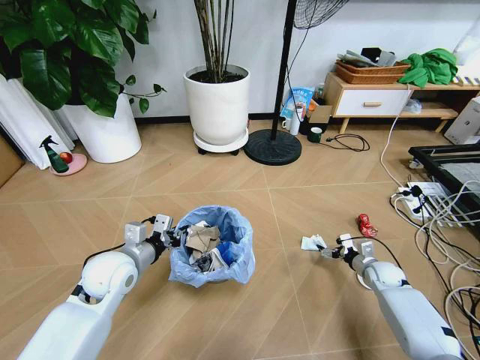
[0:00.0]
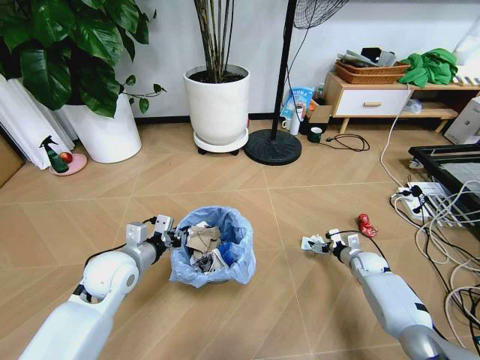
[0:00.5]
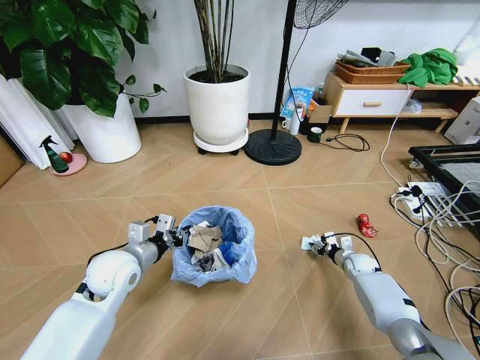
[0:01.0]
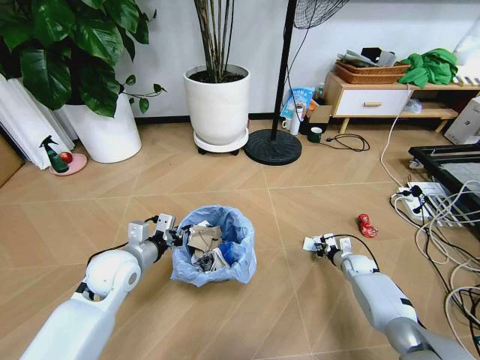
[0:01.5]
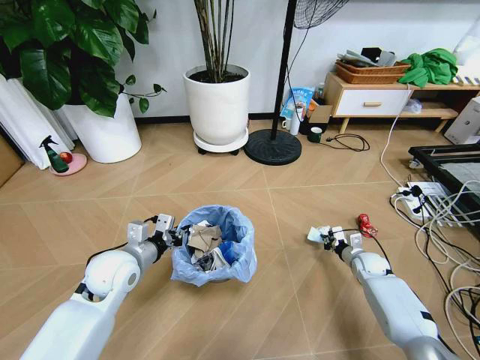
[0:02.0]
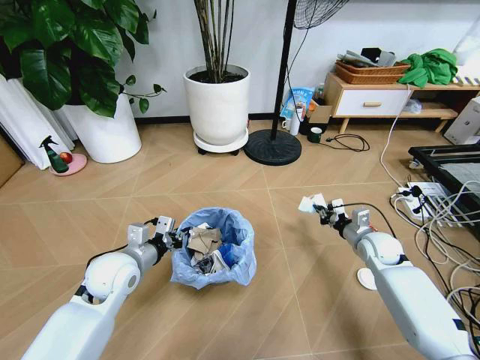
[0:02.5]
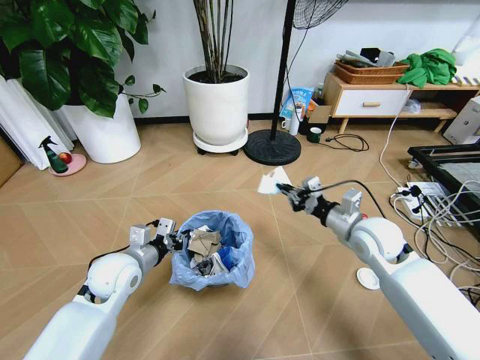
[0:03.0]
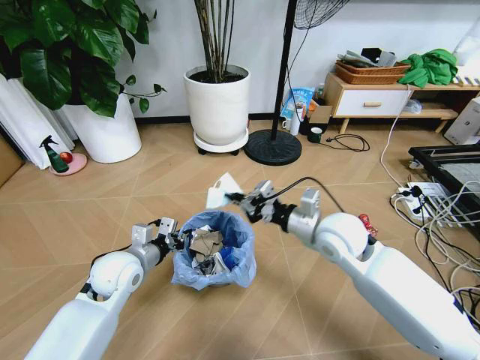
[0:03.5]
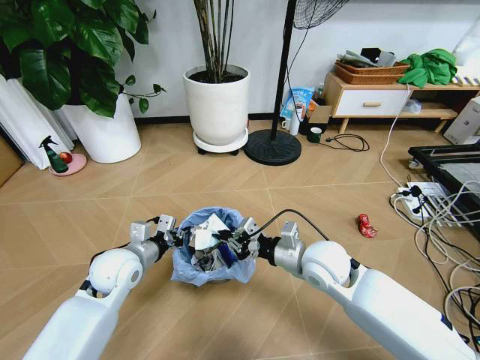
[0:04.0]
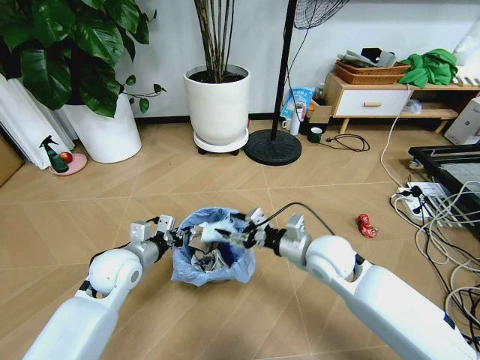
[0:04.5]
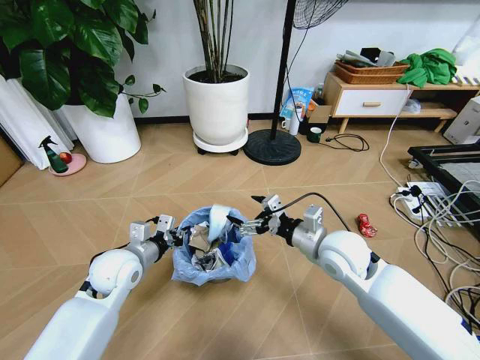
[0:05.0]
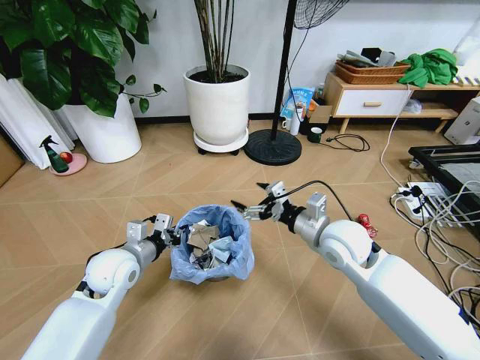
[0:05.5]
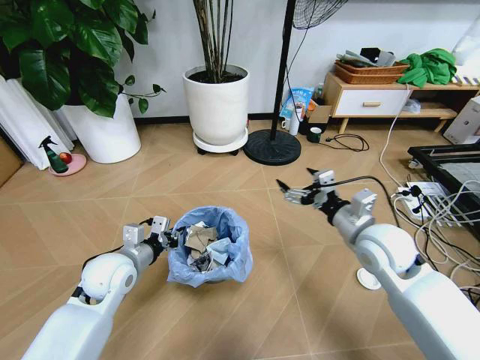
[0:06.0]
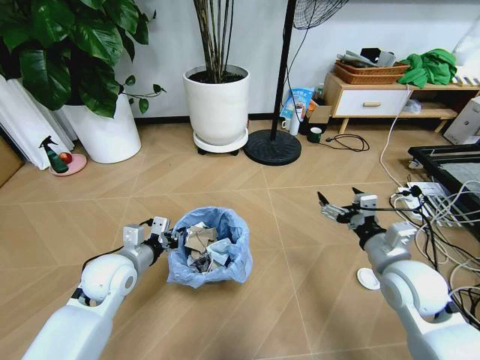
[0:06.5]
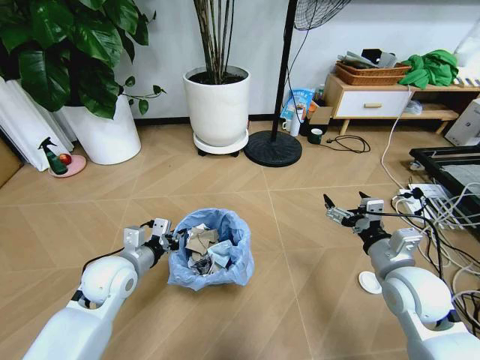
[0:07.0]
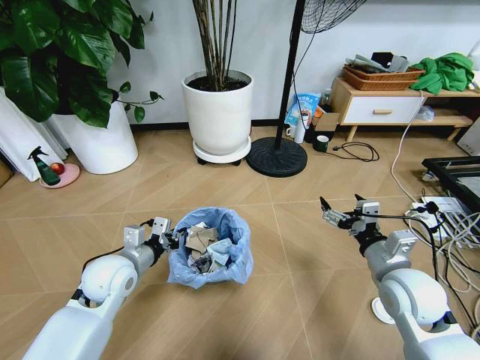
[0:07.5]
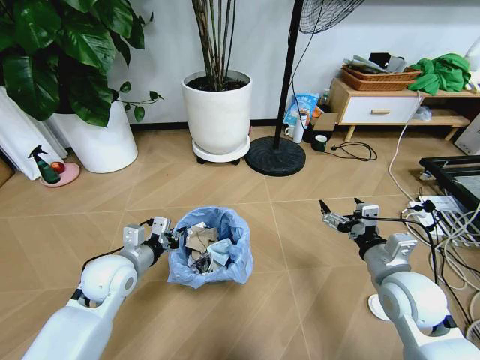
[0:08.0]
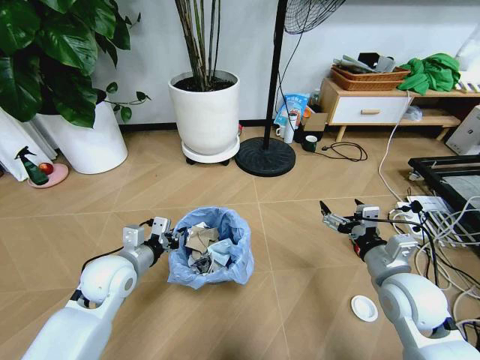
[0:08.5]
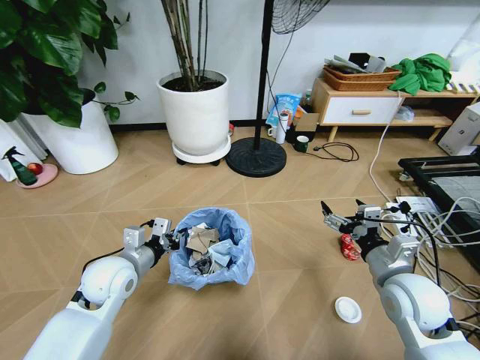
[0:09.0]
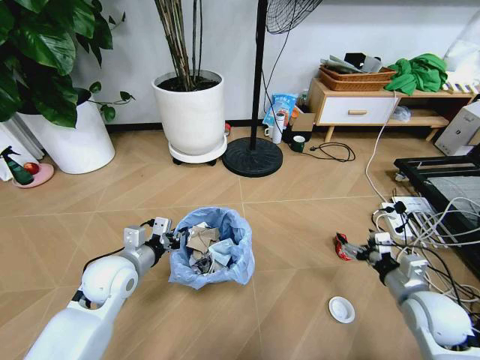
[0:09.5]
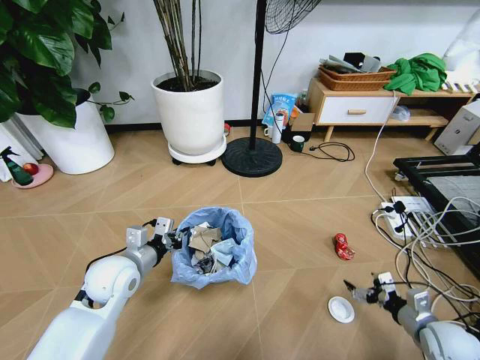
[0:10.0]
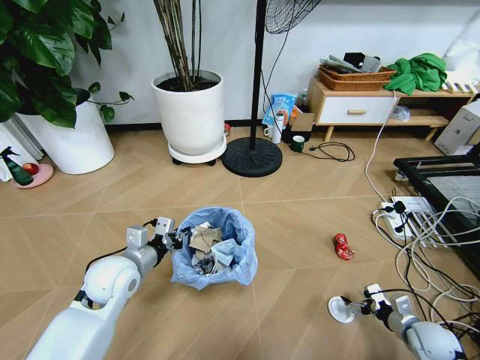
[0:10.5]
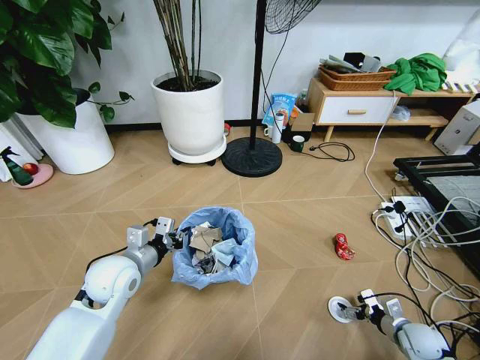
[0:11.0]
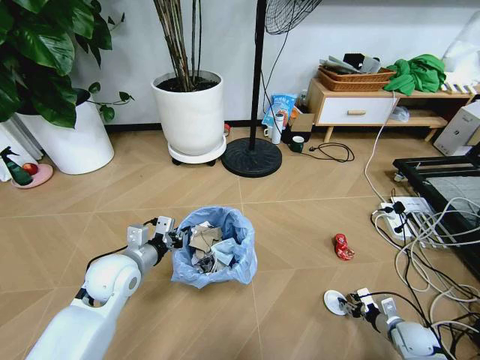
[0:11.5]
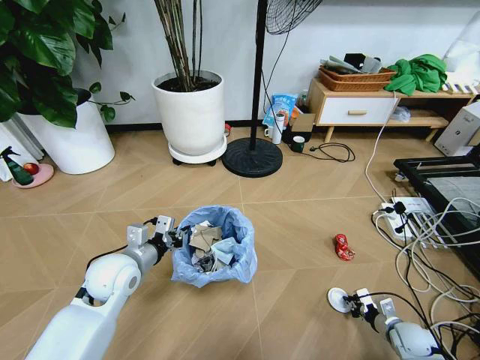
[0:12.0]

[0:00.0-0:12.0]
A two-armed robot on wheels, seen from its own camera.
Task of the whole recording: Pick up the trash bin and place the garbage on the floor into it.
0:00.0 to 0:02.0: The right gripper closes.
0:02.0 to 0:04.0: The right gripper is displaced to the left, upward and backward by some 35 cm.
0:04.0 to 0:06.0: The right gripper moves to the right and upward, approximately 10 cm, and opens up.
0:06.0 to 0:08.0: The right gripper shifts approximately 10 cm backward and downward.
0:08.0 to 0:10.0: The right gripper shifts roughly 20 cm downward and to the right.
0:10.0 to 0:12.0: The right gripper shifts some 10 cm downward, and closes its fingers.

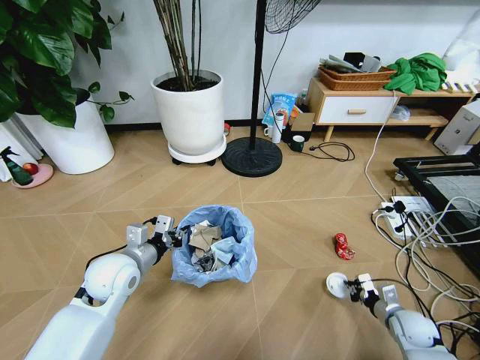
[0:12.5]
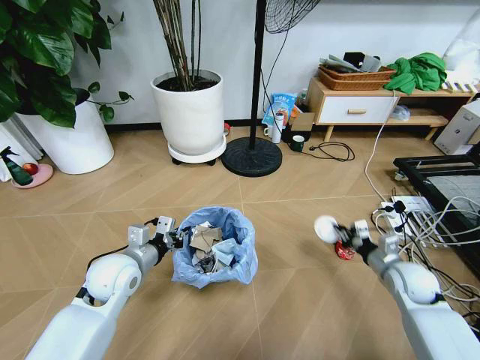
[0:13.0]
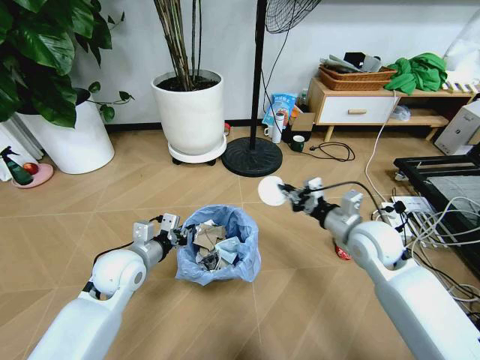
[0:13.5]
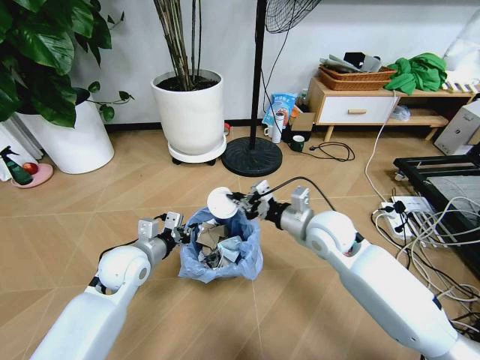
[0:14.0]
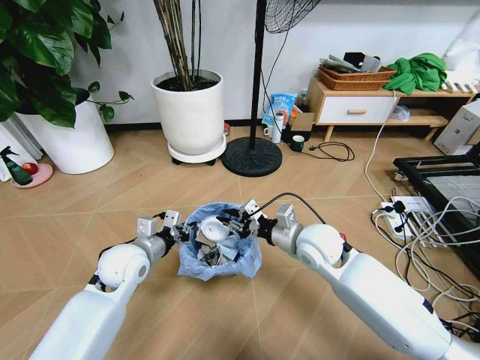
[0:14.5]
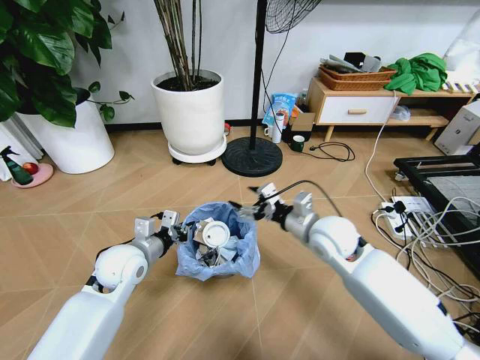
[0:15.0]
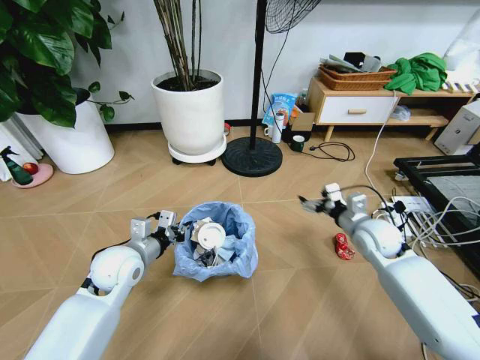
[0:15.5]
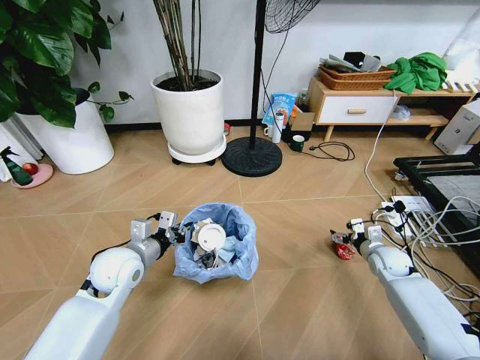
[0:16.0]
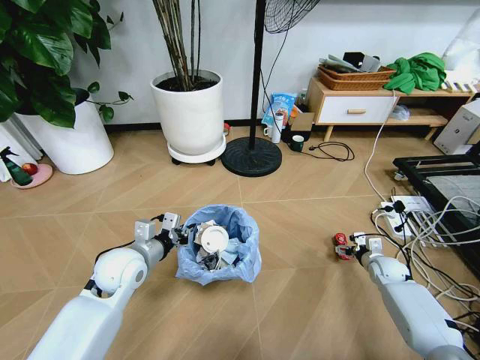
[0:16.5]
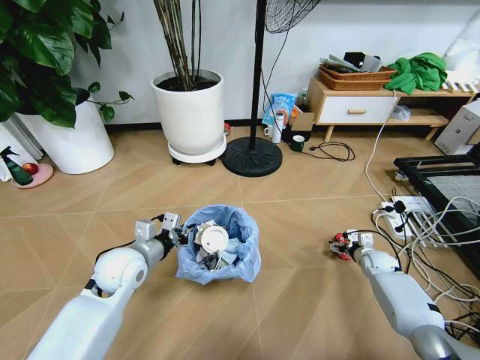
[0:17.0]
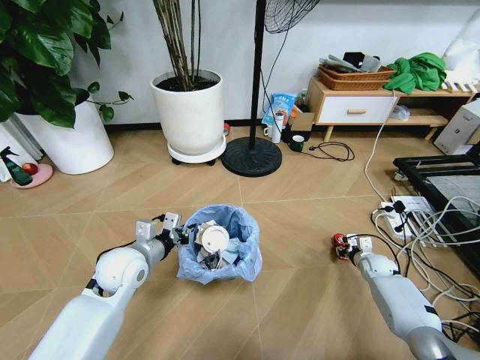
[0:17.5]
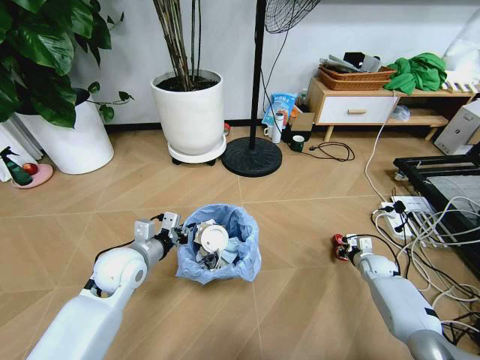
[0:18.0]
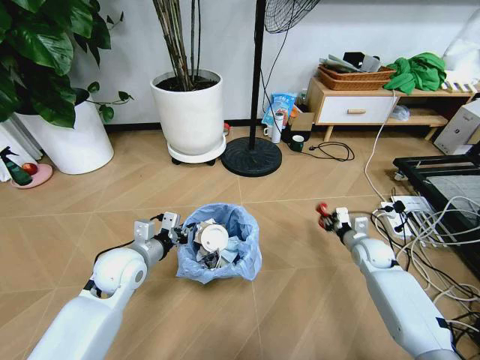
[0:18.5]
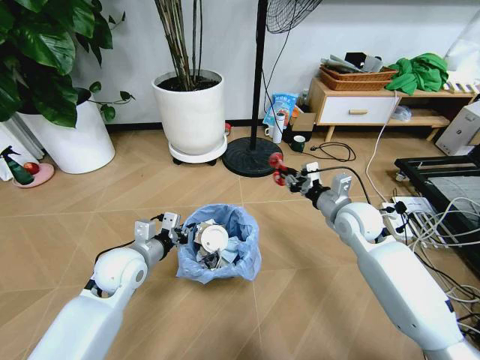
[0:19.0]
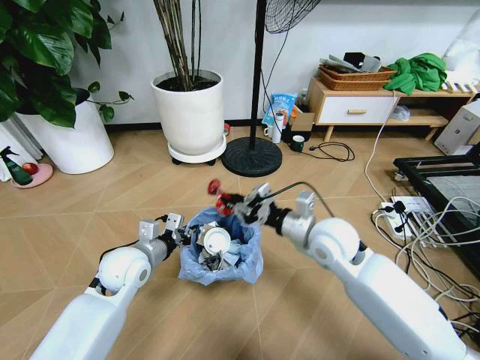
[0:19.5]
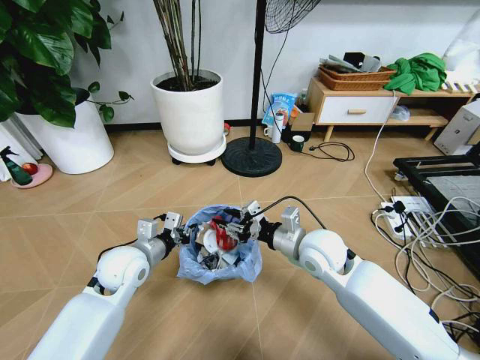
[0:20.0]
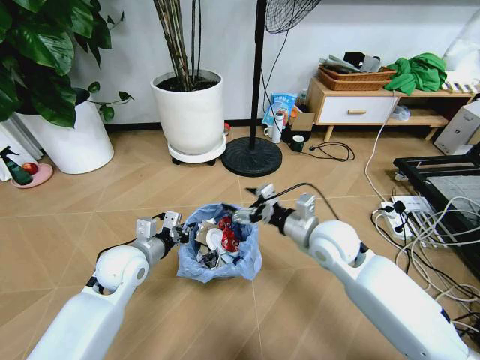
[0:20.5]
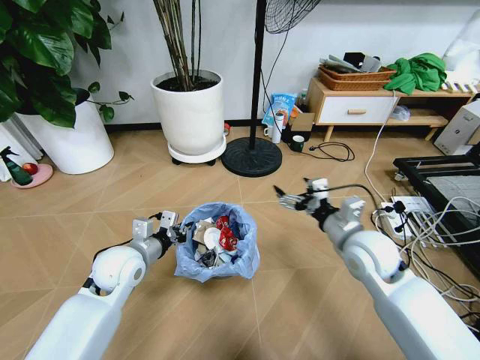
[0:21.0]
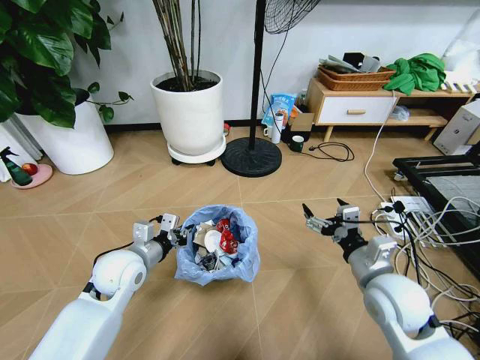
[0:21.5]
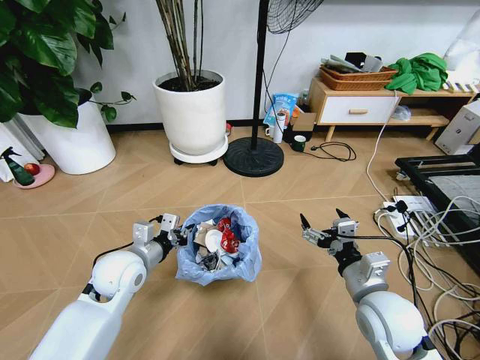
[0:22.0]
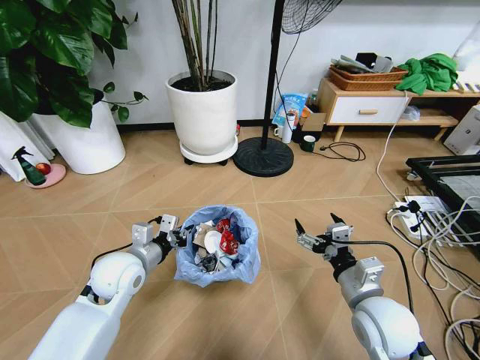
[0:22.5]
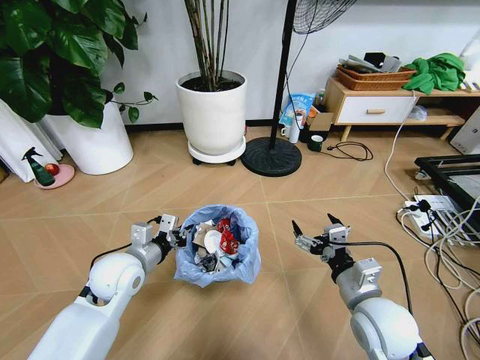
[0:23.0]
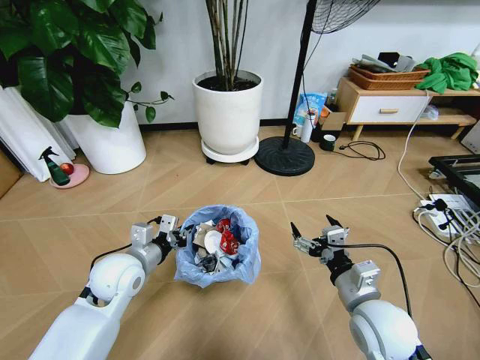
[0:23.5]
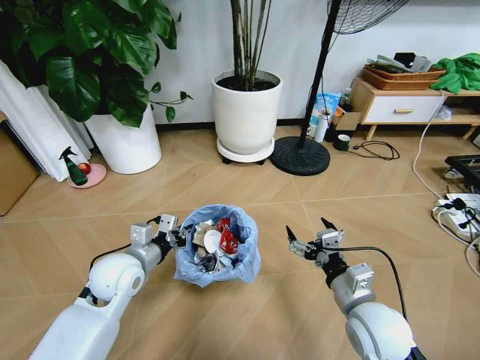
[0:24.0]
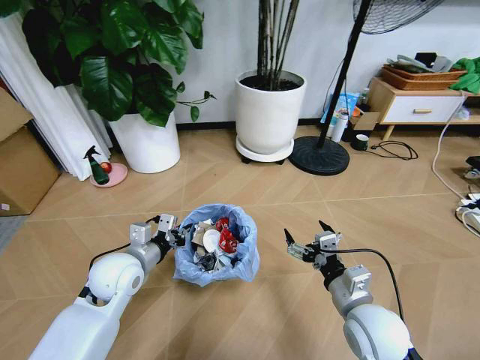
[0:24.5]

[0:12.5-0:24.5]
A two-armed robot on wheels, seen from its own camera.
Task of the whole recording: Pick up the trash bin and place the garbage on the floor into it.
0:12.5 to 0:14.5: The right gripper moves to the left, upward and forward, some 40 cm.
0:14.5 to 0:16.5: The right gripper moves to the right and downward, some 35 cm, and opens up.
0:16.5 to 0:18.5: The right gripper moves upward and to the left, approximately 10 cm, and closes its fingers.
0:18.5 to 0:20.5: The right gripper shifts roughly 25 cm to the left and upward, and opens up.
0:20.5 to 0:22.5: The right gripper goes about 15 cm backward.

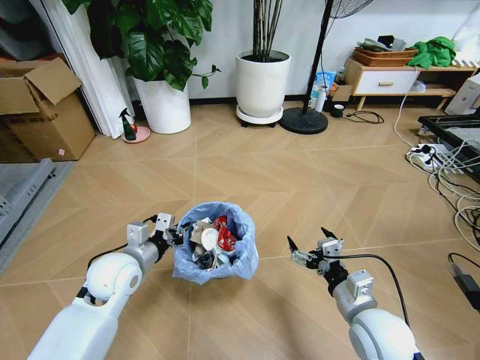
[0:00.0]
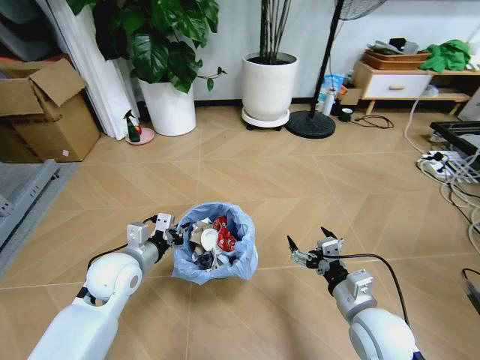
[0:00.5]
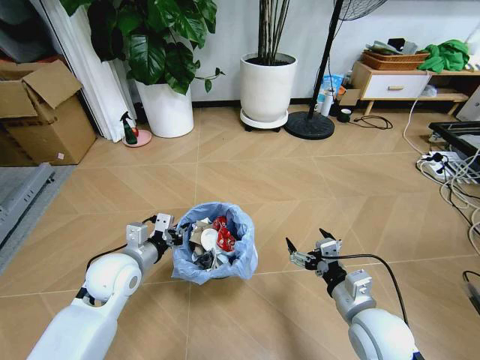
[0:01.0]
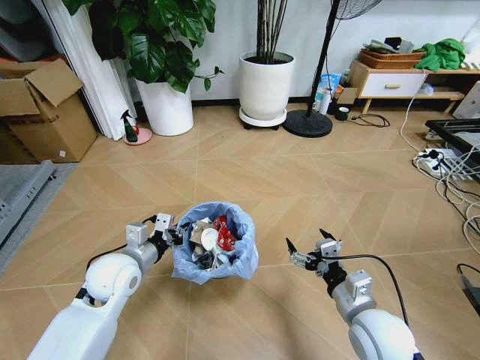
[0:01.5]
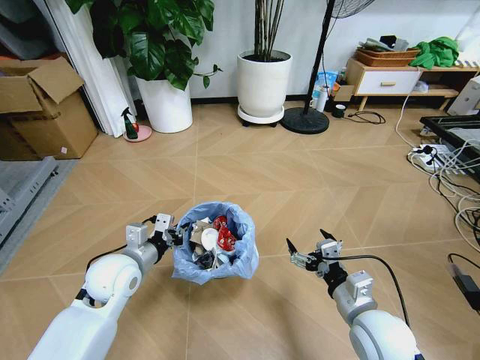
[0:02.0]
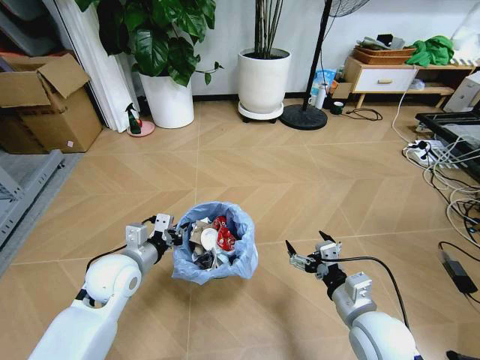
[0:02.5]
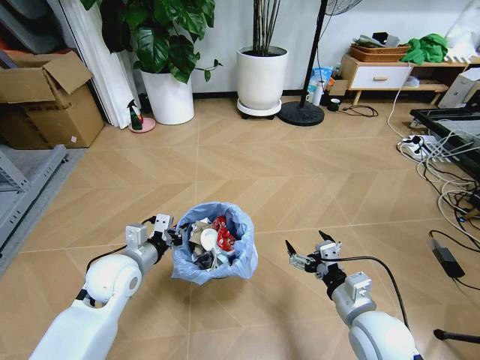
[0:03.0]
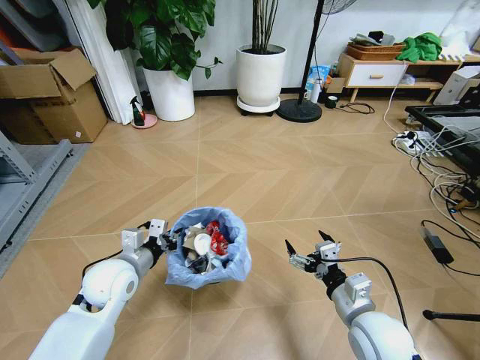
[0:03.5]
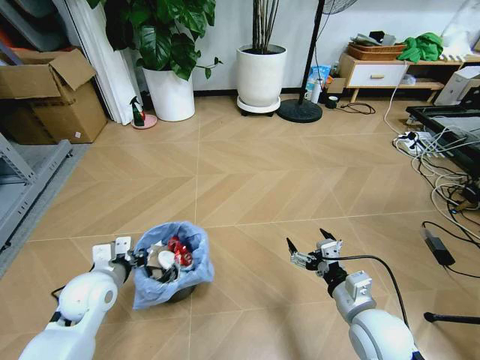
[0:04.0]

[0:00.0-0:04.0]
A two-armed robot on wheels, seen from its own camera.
Task of the whole recording: Pick up the trash bin and place the garbage on the floor into it.
0:00.0 to 0:02.0: The two grippers keep their place.
0:02.0 to 0:04.0: The left gripper moves to the left, some 5 cm.
